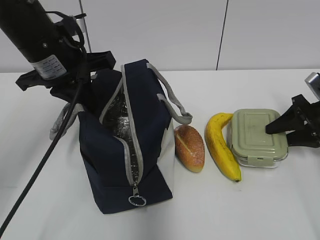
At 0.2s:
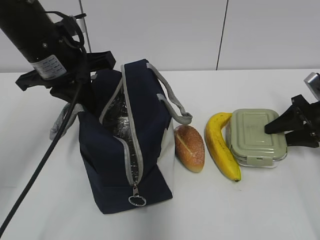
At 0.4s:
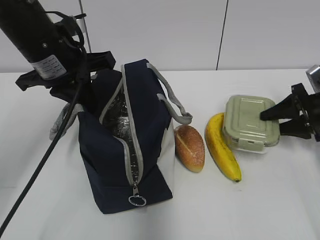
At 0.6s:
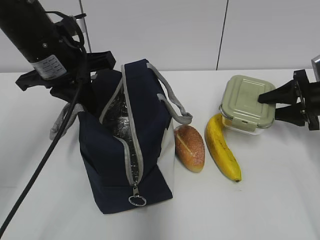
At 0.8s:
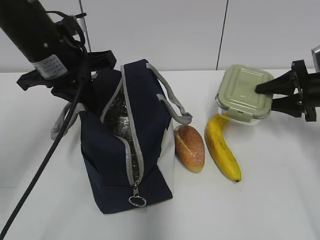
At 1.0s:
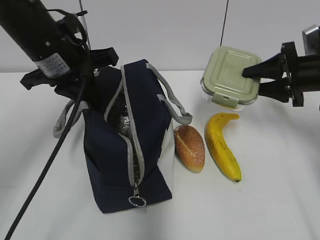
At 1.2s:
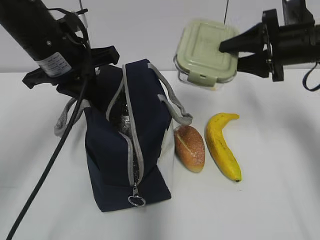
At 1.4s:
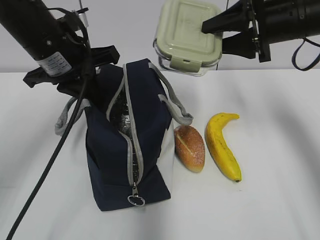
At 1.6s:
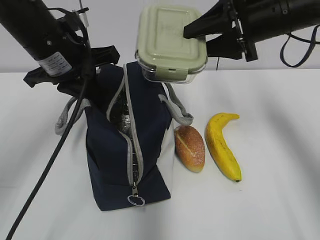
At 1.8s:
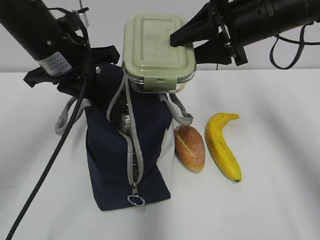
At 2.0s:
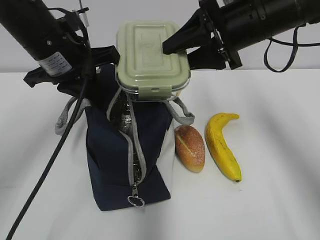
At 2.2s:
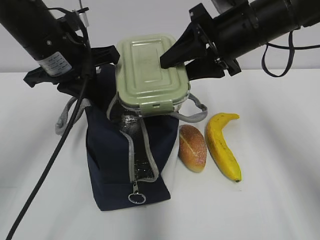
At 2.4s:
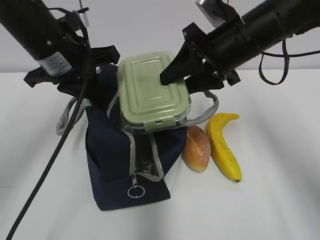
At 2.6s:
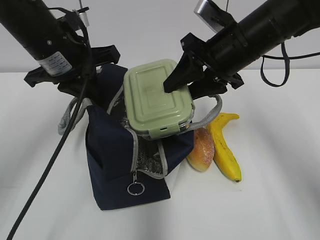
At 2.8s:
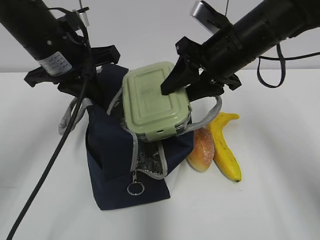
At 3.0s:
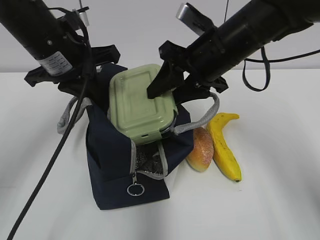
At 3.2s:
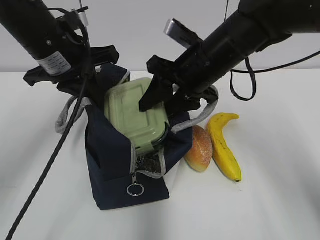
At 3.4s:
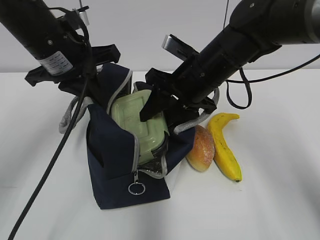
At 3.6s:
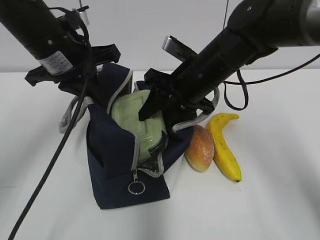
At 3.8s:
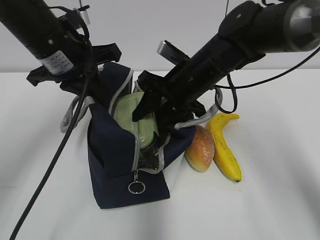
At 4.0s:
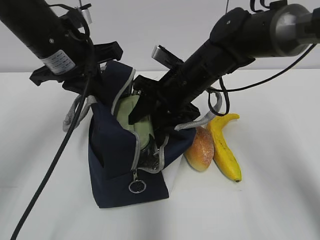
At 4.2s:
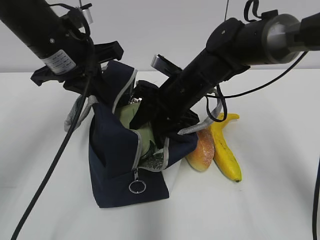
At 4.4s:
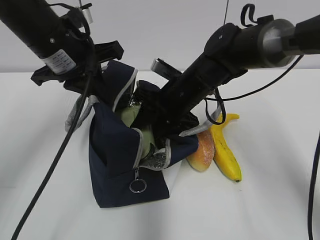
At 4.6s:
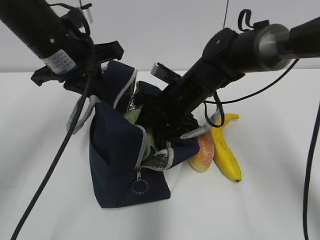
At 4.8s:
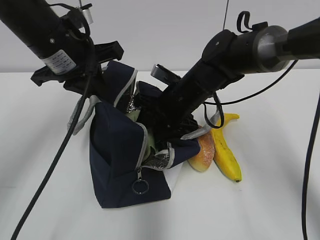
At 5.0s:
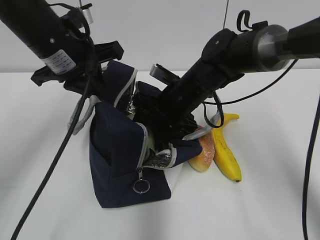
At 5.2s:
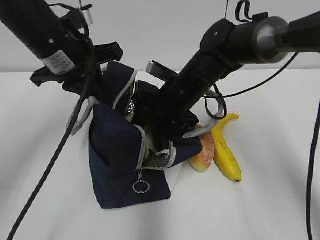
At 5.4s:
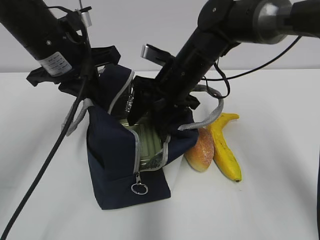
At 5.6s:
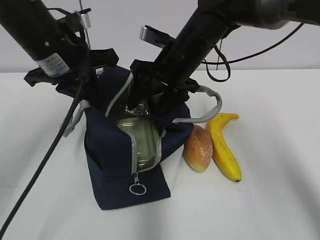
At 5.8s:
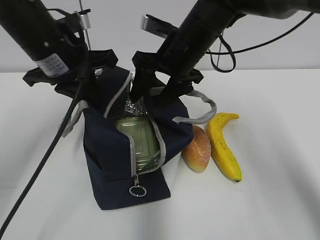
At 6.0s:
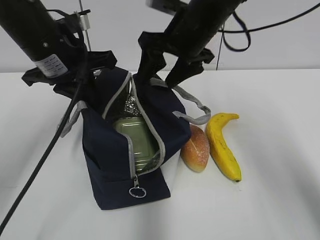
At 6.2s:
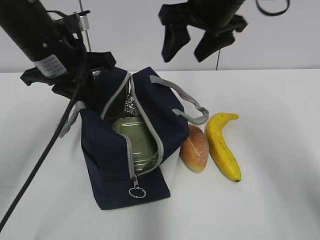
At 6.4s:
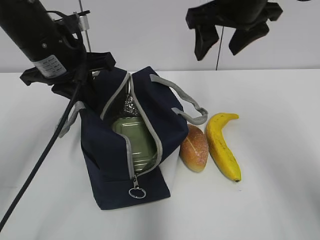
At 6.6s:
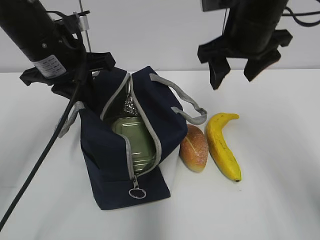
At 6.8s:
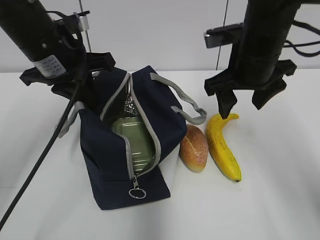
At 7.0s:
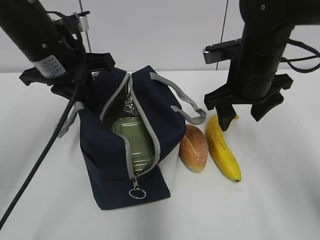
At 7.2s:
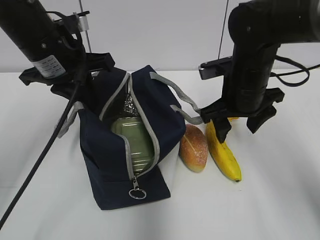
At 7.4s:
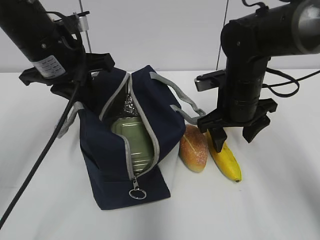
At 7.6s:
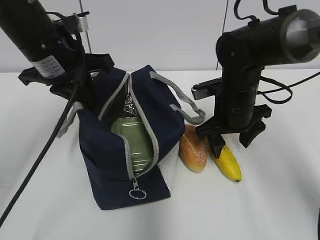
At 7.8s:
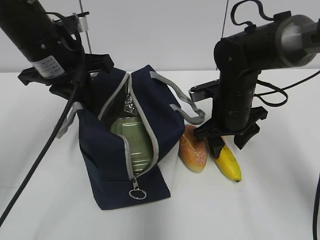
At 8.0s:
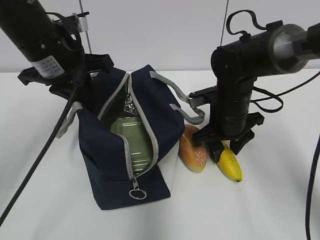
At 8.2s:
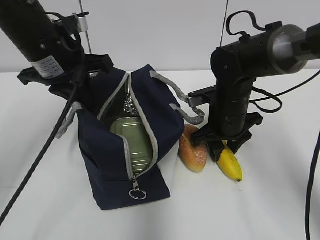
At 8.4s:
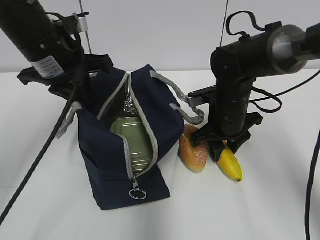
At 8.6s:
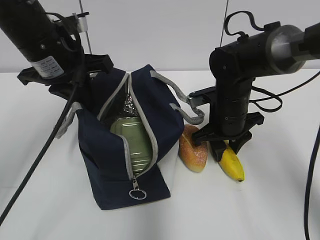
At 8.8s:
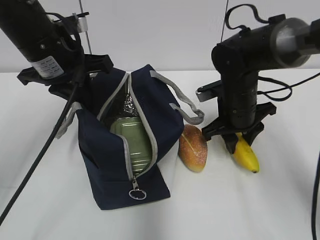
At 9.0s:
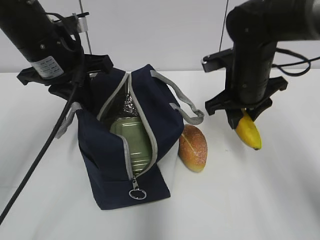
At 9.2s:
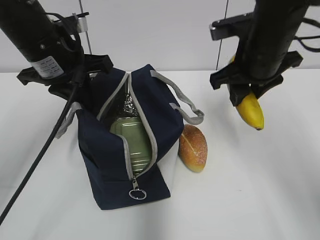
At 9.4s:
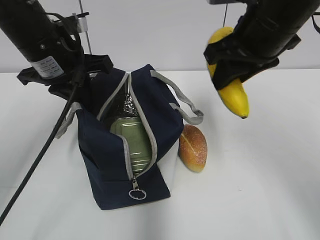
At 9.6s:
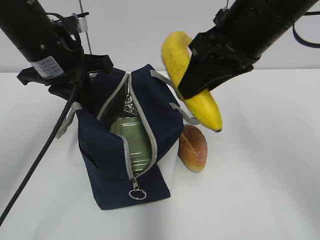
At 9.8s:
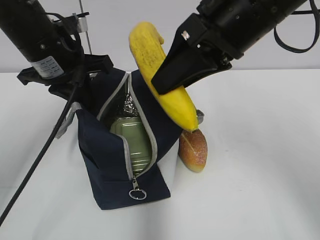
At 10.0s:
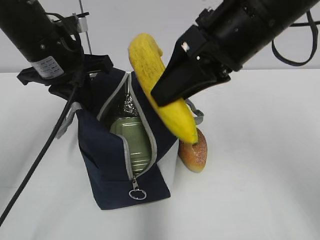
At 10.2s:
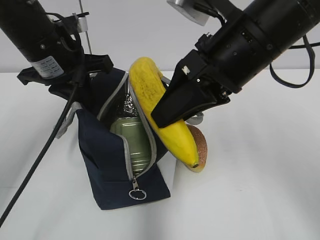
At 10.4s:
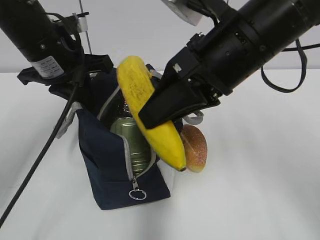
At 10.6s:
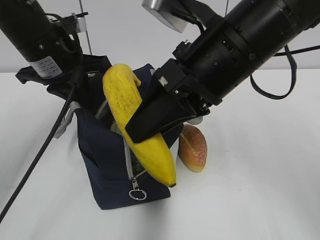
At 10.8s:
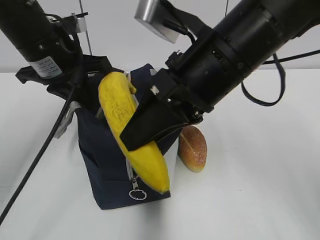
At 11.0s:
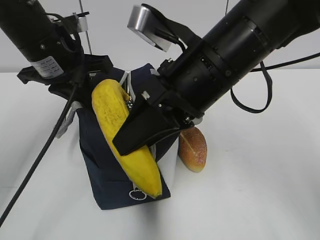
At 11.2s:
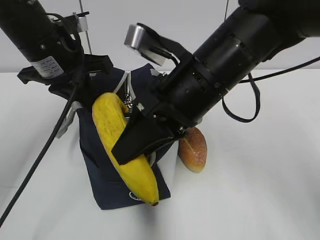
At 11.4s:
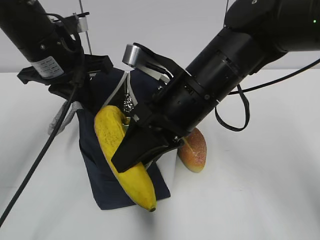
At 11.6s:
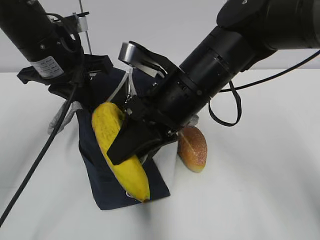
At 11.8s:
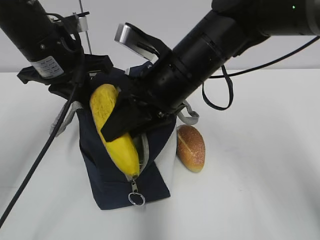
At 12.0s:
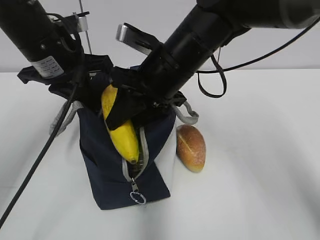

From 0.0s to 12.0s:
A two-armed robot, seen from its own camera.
Step, from 2.2s to 5.2s: Place it into the bag with your right hand.
Step, from 5.4s to 8.6s: Grab the banana with your right hand.
From 0.0s to 1.6s: The right gripper is displaced upward and to the left by some 25 cm.
From 1.6s to 3.0s: The right gripper travels to the left by some 10 cm.
From 3.0s to 4.4s: The right gripper shifts some 10 cm downward.
From 4.4s to 6.0s: The right gripper heads upward, covering approximately 10 cm.
From 6.0s to 7.6s: The right gripper moves downward and to the right, about 15 cm.
From 7.6s to 9.0s: The right gripper closes its fingers.
From 9.0s to 10.4s: The right gripper moves upward, backward and to the left, about 15 cm.
From 10.4s to 12.0s: The right gripper shifts some 10 cm forward, to the left and downward.

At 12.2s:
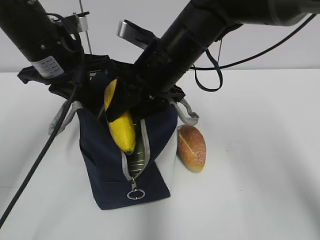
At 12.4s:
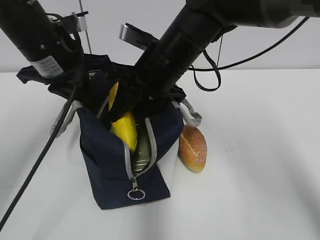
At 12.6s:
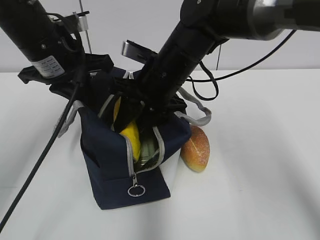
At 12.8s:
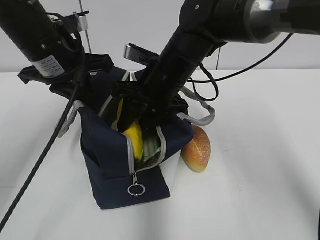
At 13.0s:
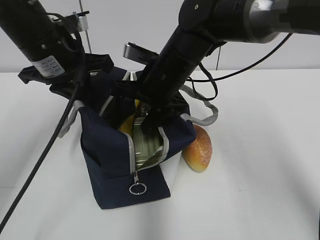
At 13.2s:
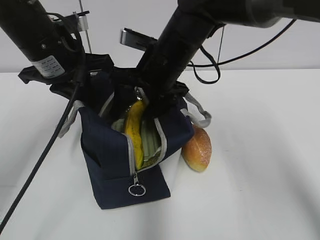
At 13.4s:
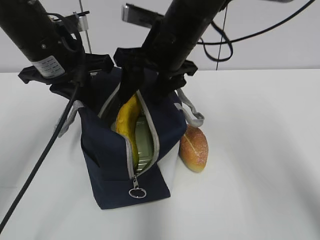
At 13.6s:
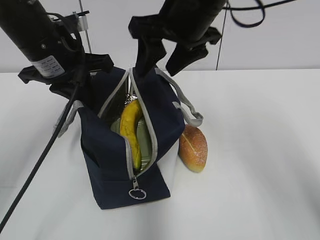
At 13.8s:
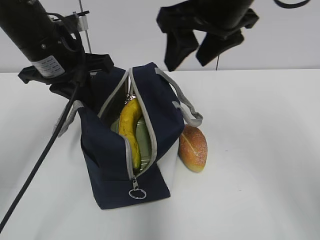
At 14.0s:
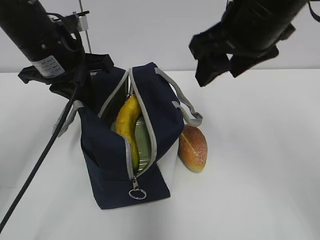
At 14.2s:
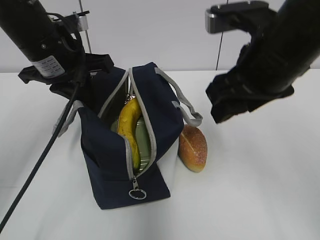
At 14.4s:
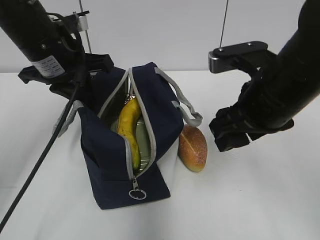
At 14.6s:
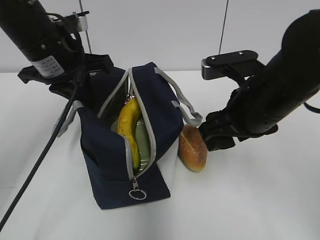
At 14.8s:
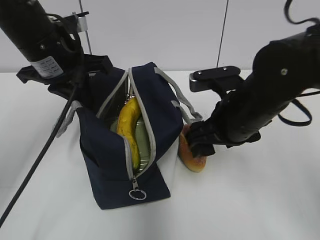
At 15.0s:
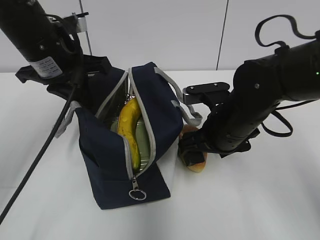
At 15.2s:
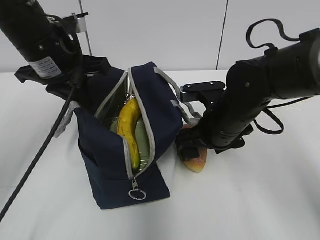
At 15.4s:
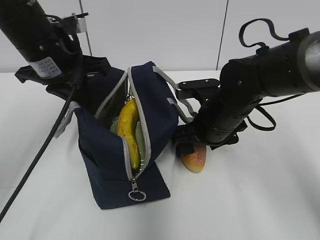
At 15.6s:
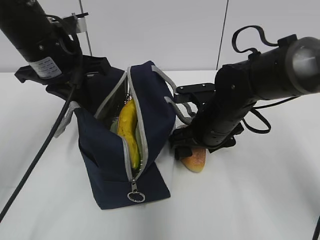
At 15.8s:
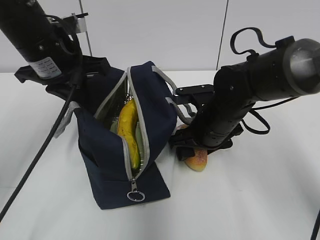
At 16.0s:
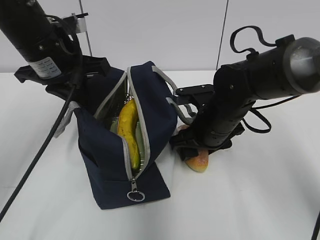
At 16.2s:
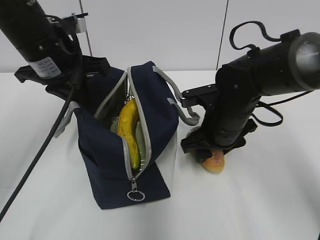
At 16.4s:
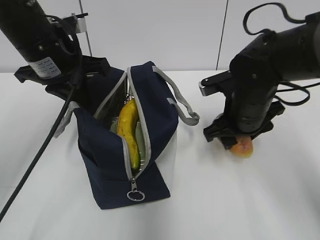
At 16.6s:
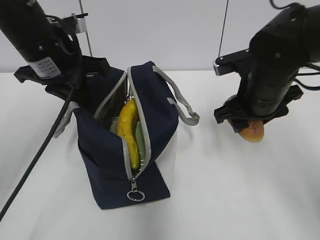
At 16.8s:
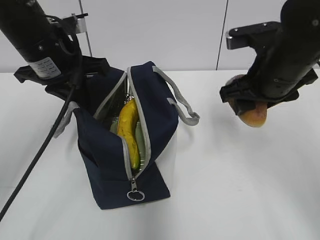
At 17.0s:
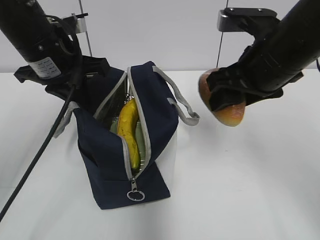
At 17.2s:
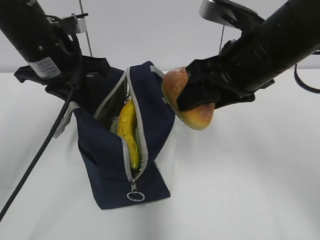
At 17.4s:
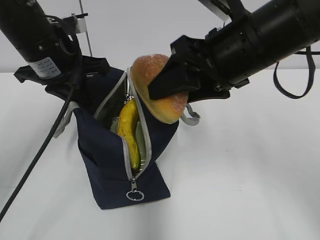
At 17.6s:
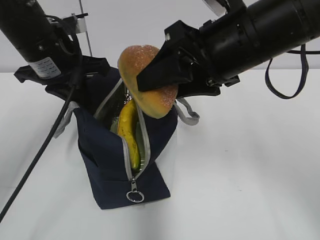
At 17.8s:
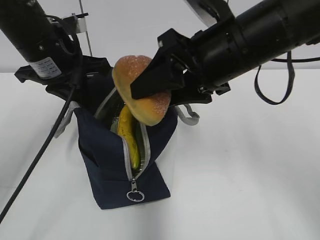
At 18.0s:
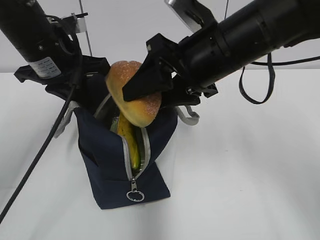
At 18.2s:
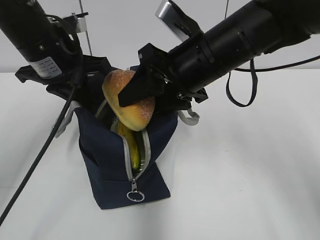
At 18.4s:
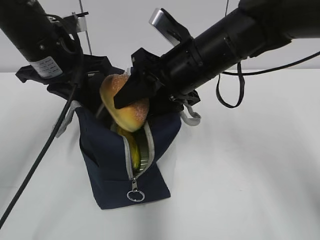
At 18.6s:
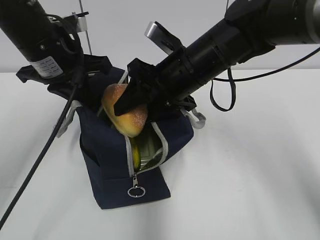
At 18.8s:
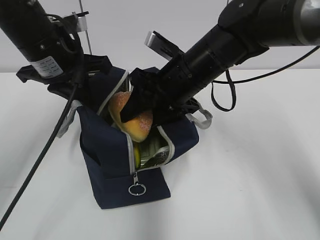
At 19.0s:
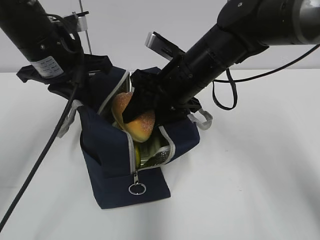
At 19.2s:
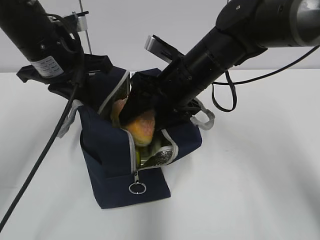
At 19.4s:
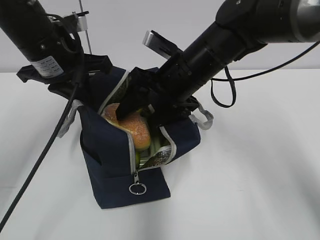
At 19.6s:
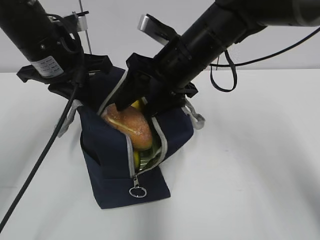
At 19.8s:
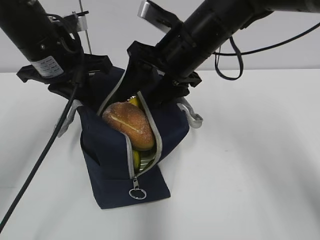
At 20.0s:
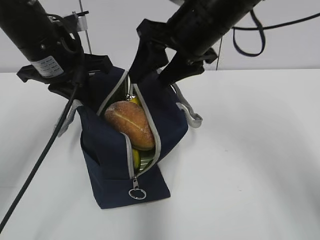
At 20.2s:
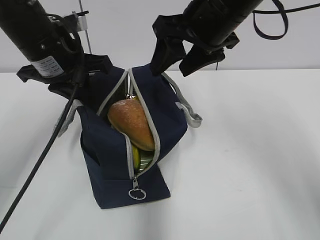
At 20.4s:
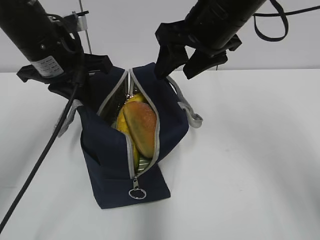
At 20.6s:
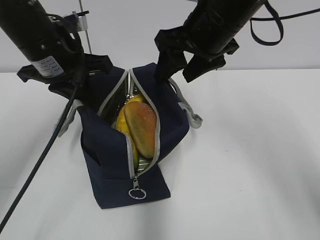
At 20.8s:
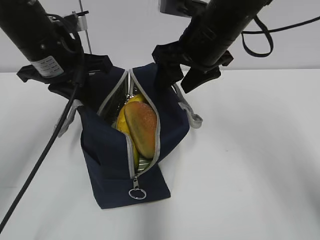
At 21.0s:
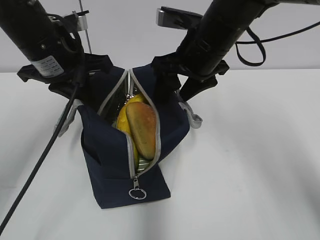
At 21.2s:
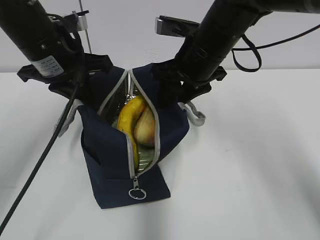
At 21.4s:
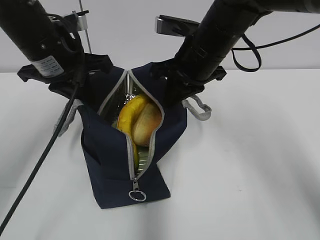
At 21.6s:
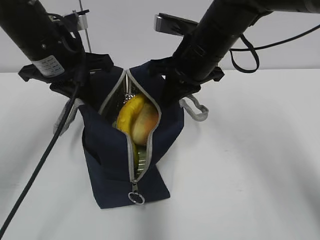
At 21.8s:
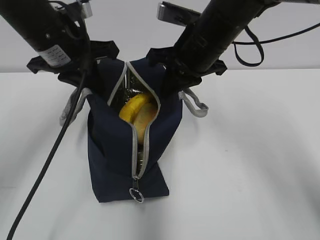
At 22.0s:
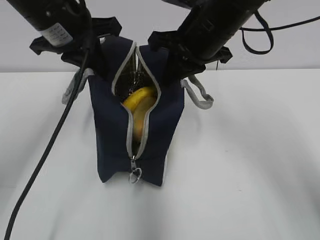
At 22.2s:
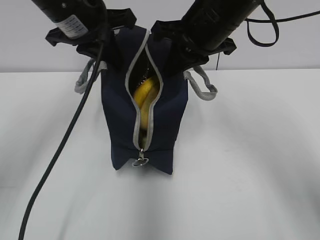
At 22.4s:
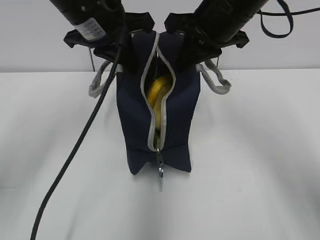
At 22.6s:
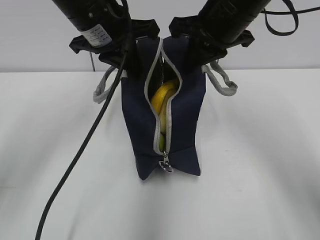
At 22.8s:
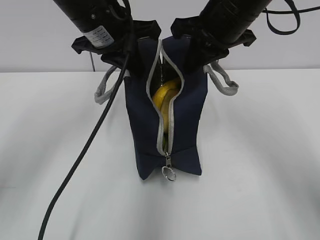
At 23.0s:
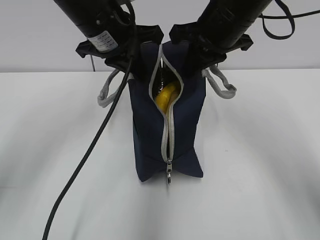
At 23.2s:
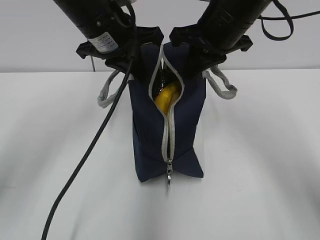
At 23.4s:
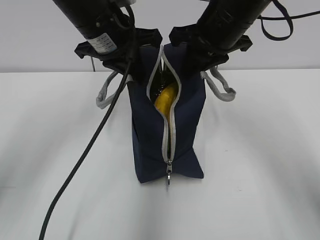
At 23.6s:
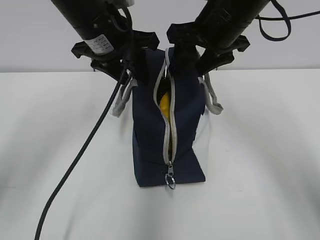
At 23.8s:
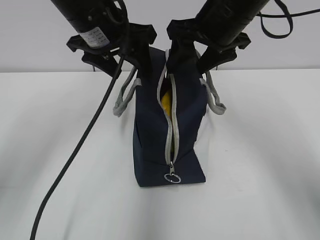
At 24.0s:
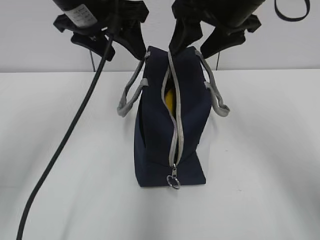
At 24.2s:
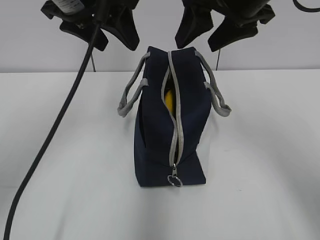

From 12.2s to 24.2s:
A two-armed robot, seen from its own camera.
Step, from 13.2s to 16.0s: Grab the bread with your right hand.
Step, from 19.8s to 21.4s: Grab the lunch bag with your right hand.
Step, from 21.6s to 23.6s: Move the lunch bag to the right.
From 12.2s to 13.8s: The right gripper shifts roughly 10 cm upward and to the right.
From 13.8s to 15.2s: The right gripper travels downward by approximately 20 cm.
From 15.2s to 16.6s: The right gripper shifts approximately 5 cm to the right.
From 16.6s to 18.2s: The right gripper is displaced to the left and upward by approximately 10 cm.
From 21.2s to 22.6s: The right gripper shifts about 5 cm upward, and closes up. Meanwhile the left gripper shifts some 5 cm to the right.
From 22.6s to 24.2s: The right gripper ends up approximately 5 cm from where it was, and opens. Meanwhile the left gripper goes approximately 5 cm upward, and opens.
